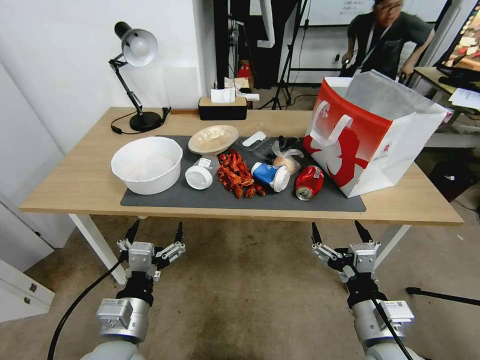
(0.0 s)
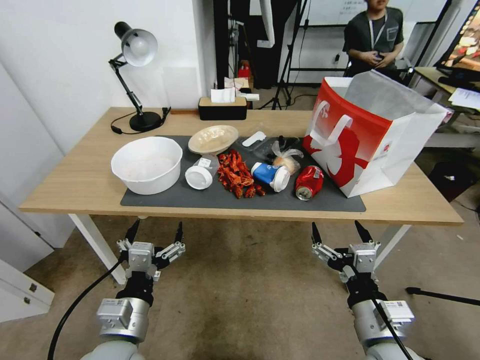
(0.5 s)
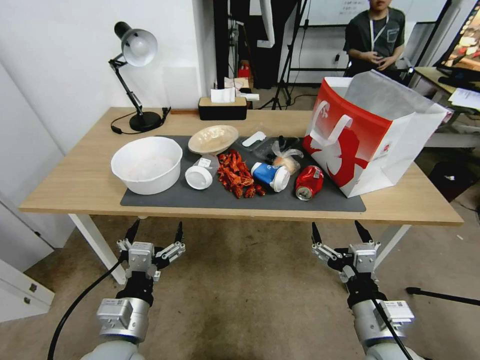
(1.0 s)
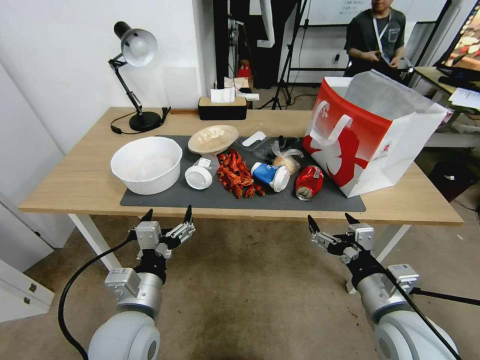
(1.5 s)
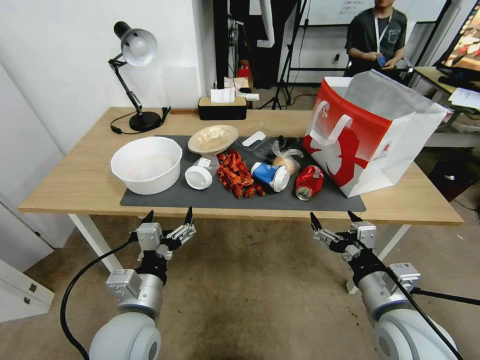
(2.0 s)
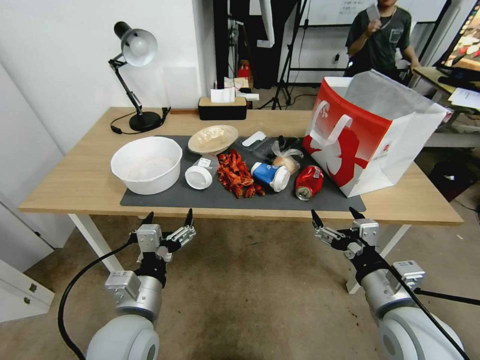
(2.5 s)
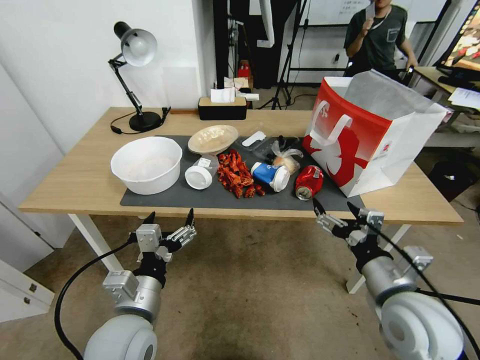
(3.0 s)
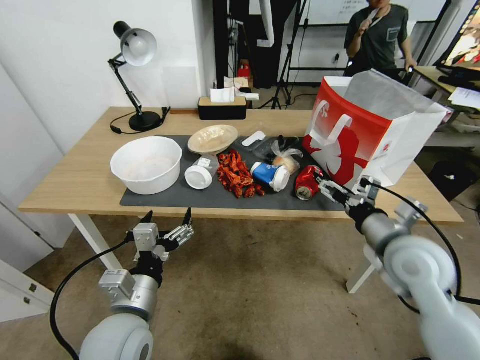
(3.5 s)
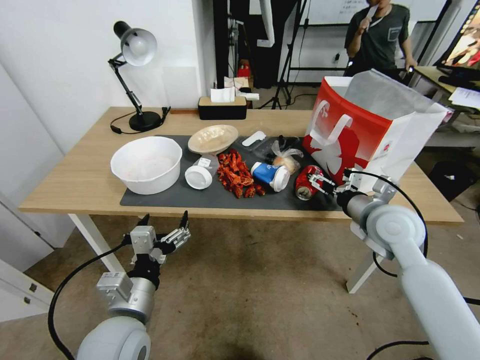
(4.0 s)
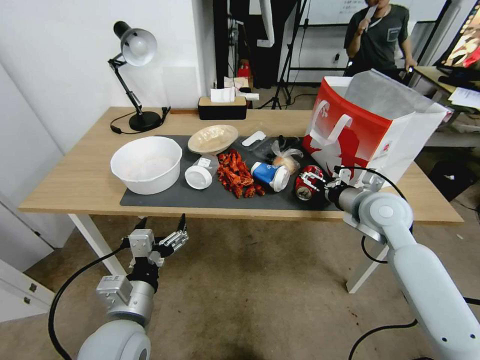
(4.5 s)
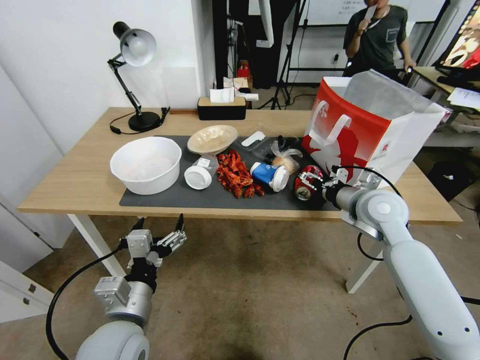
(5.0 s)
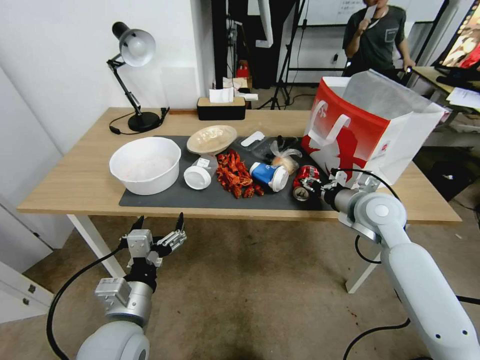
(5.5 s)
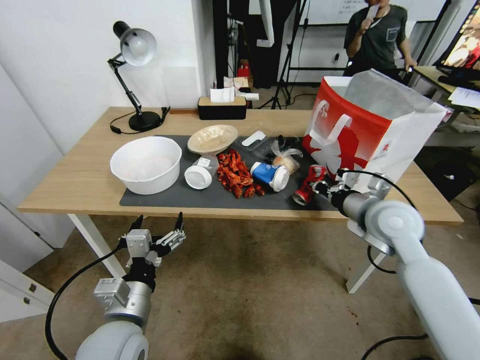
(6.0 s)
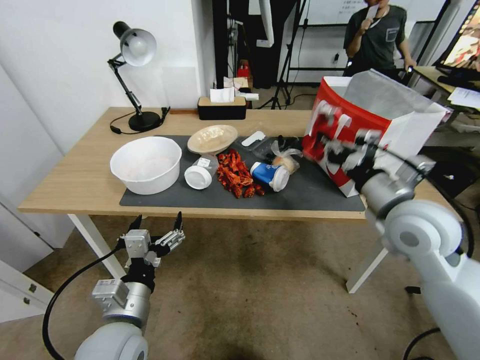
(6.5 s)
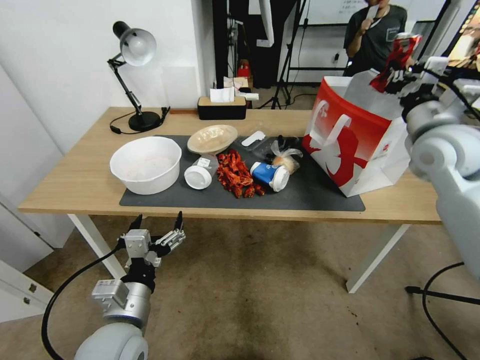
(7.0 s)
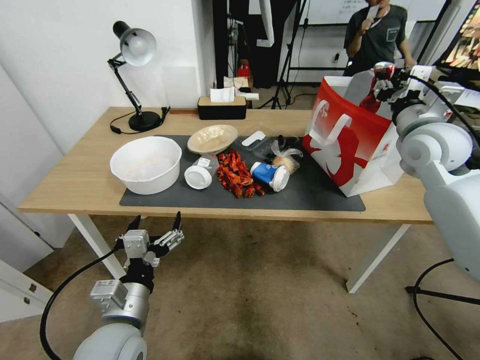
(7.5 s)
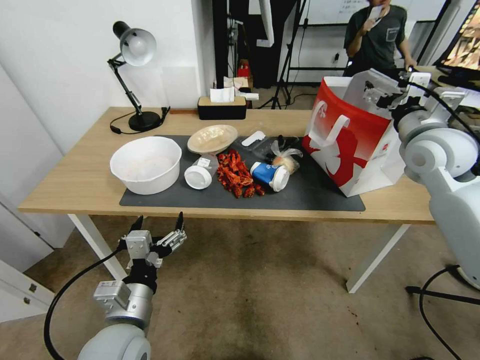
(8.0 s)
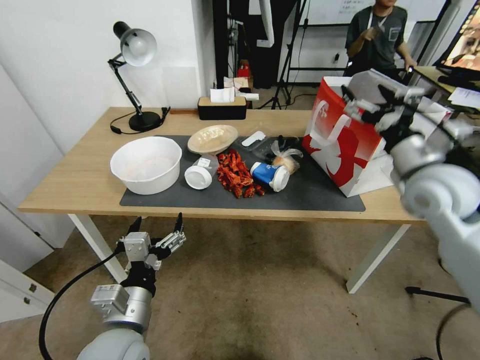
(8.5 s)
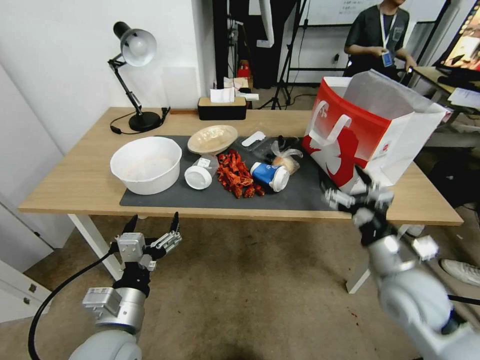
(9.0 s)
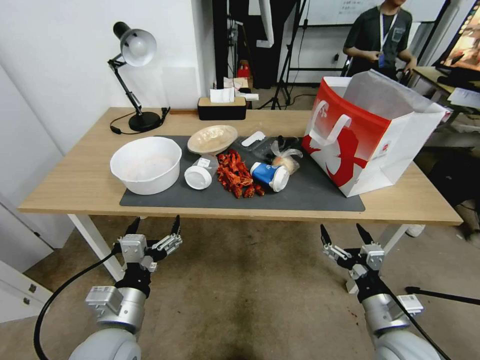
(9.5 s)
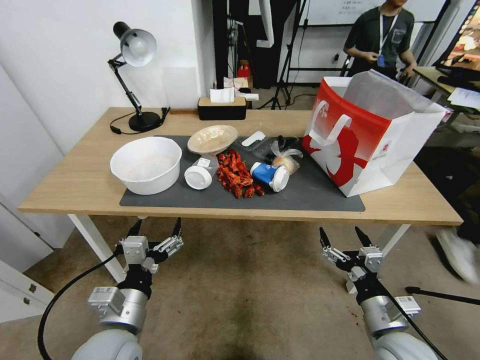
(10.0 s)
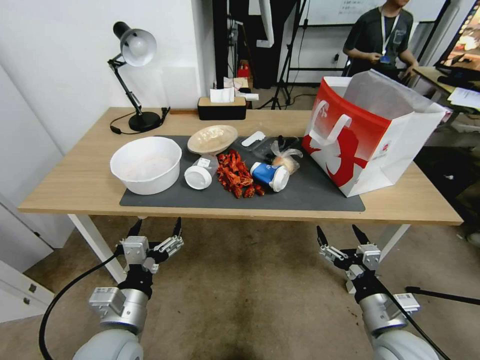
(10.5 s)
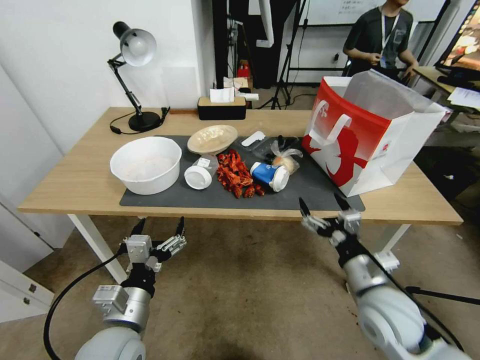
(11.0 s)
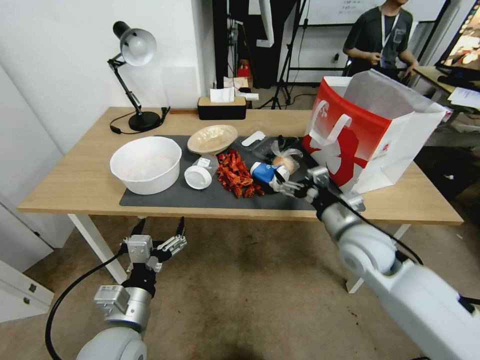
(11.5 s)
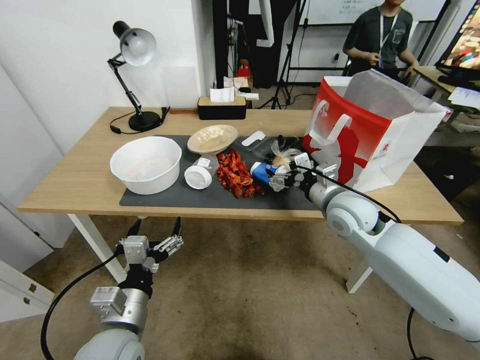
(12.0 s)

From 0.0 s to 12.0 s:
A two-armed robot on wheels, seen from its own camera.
From 2.0 s to 4.0 s: The right gripper moves forward, roughly 15 cm.
From 4.0 s to 6.0 s: The right gripper closes its fingers.
From 6.0 s to 8.0 s: The right gripper shifts some 15 cm upward, forward and to the right, and opens its fingers.
From 8.0 s to 10.0 s: The right gripper travels downward and backward by some 40 cm.
From 10.0 s to 12.0 s: The right gripper heads forward and upward, covering about 25 cm.

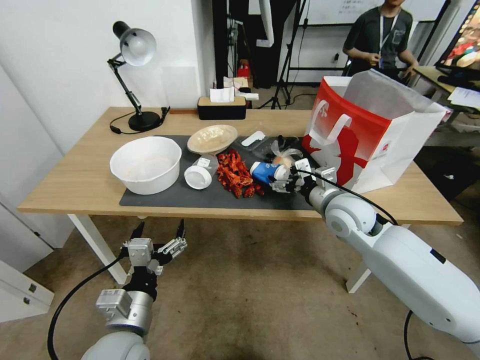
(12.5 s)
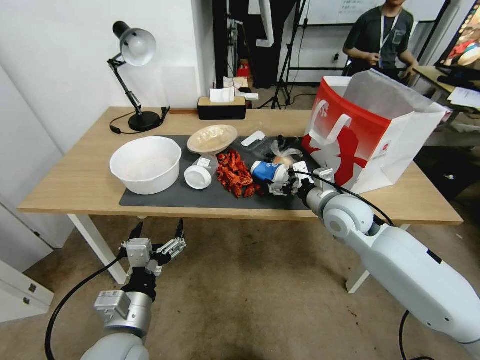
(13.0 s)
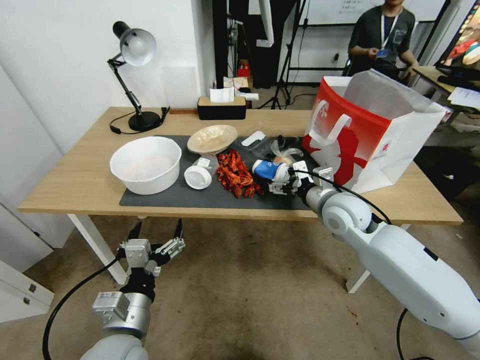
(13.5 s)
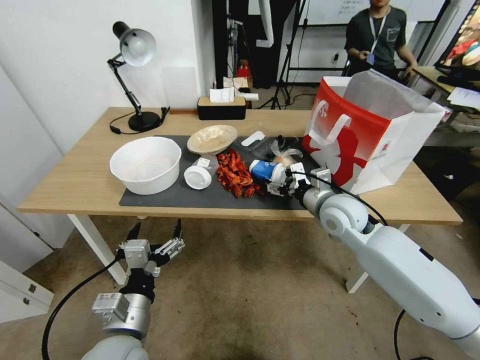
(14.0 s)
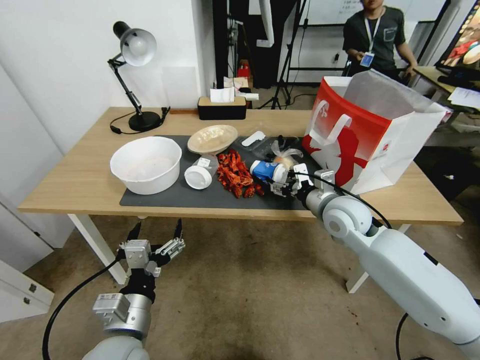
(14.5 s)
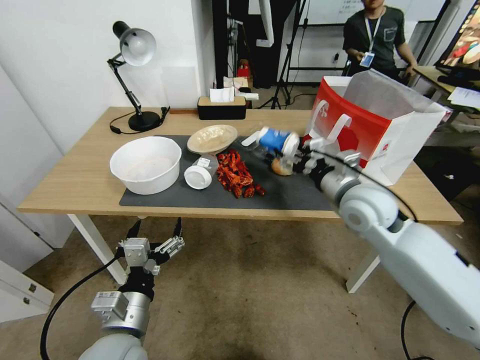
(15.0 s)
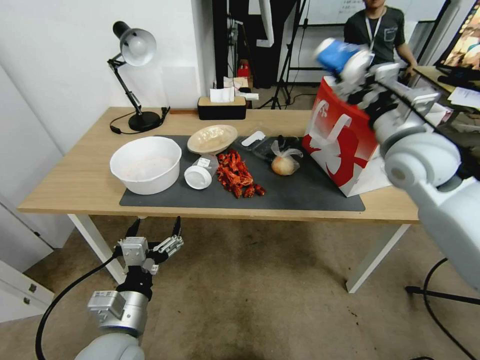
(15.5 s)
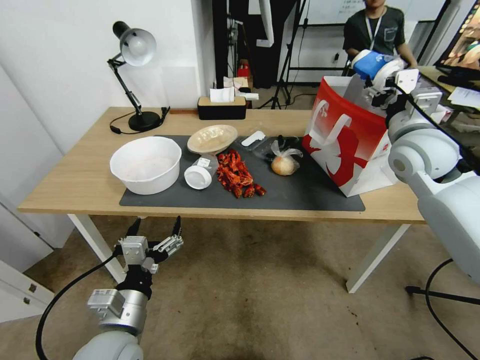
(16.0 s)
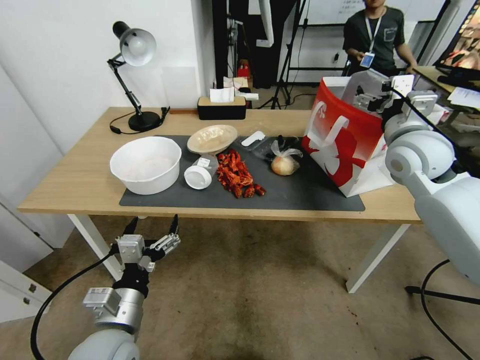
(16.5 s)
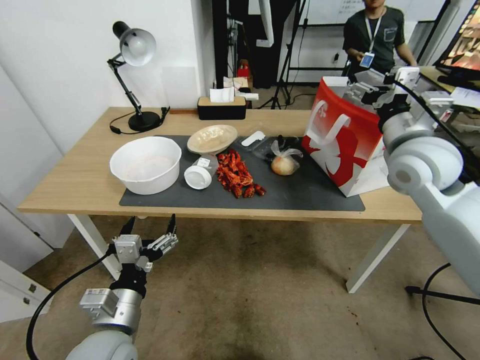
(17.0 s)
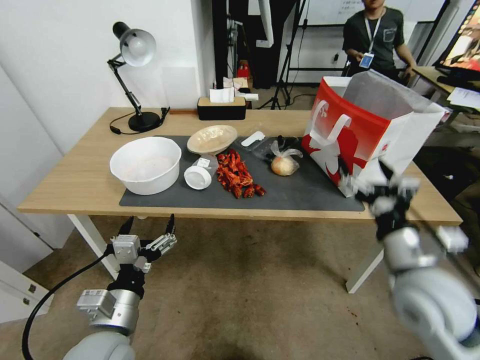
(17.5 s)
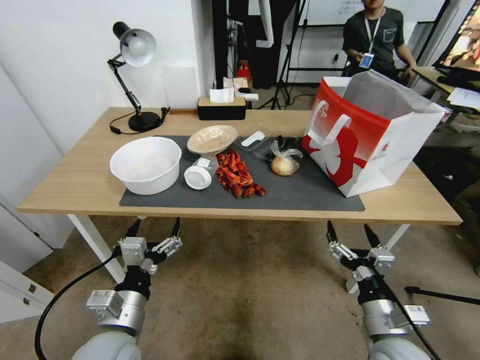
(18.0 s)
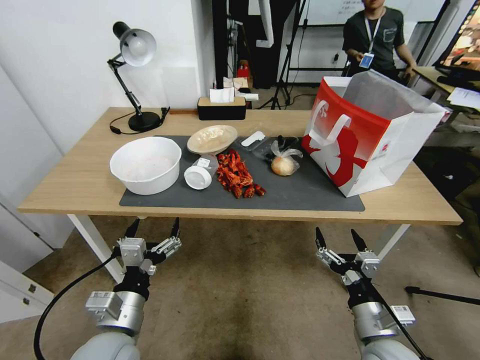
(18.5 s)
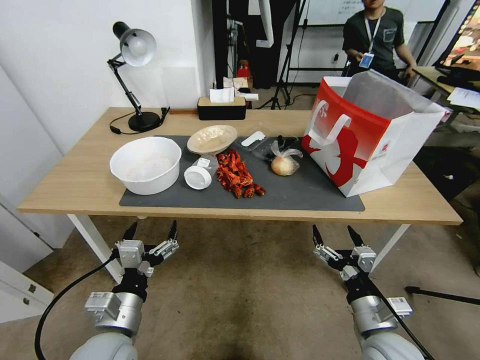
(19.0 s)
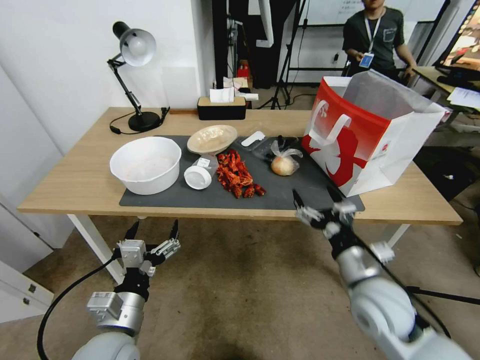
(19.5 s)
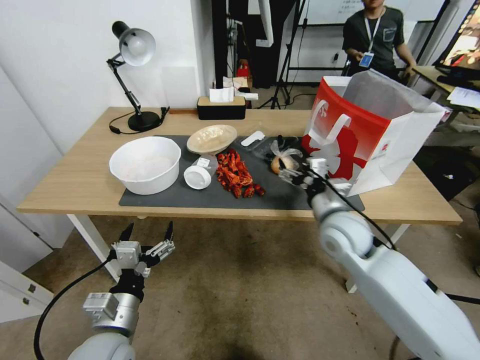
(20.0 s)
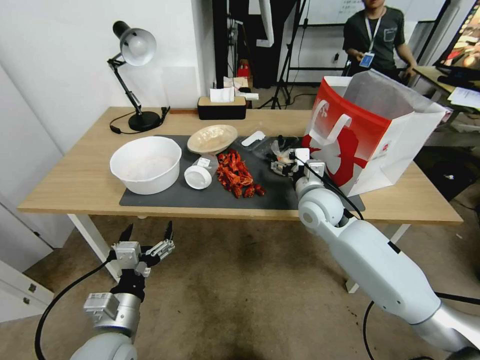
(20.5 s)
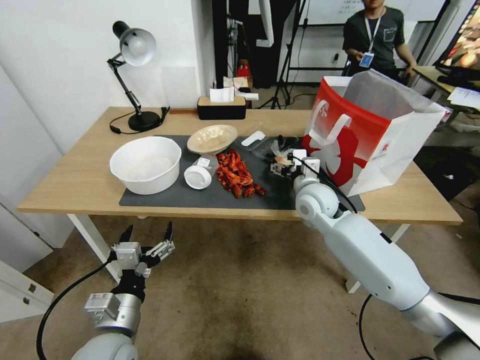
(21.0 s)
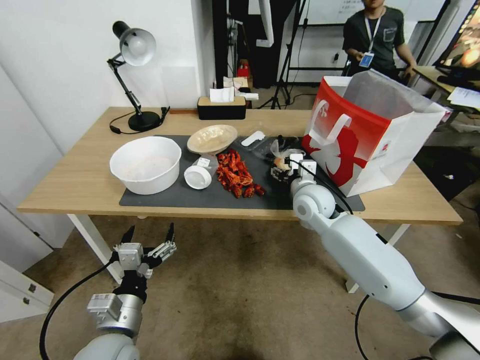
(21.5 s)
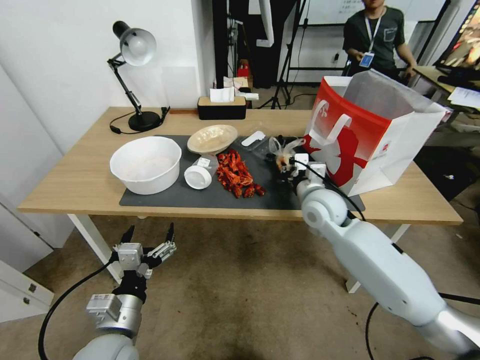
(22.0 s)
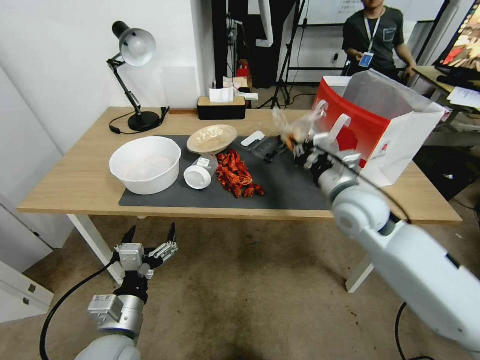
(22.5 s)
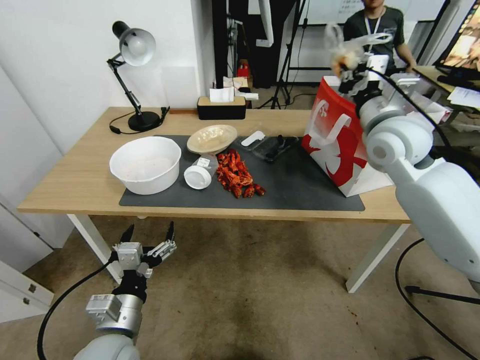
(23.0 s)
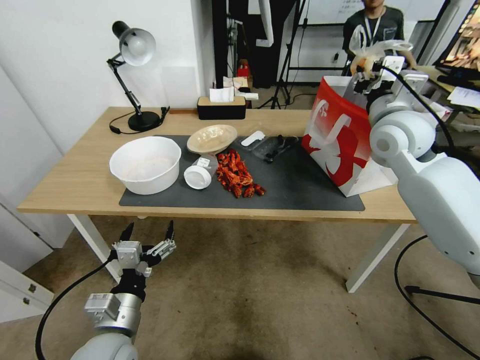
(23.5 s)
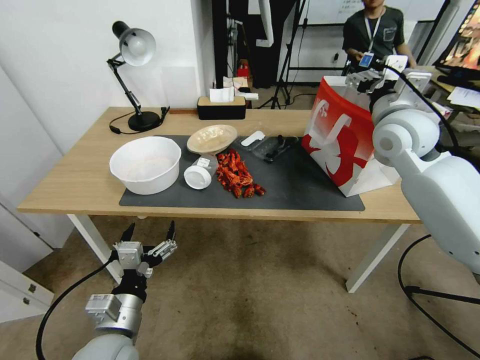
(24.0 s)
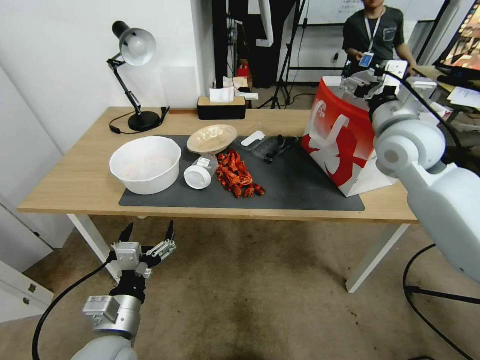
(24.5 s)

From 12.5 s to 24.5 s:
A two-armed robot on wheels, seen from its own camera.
From 12.5 s to 14.5 s: The grippers make only small movements.
From 14.5 s to 16.5 s: The right gripper goes about 15 cm upward and to the right.
From 16.5 s to 18.5 s: The right gripper heads backward and downward, covering some 40 cm.
From 18.5 s to 20.5 s: The right gripper shifts about 30 cm forward and upward.
From 20.5 s to 22.5 s: The right gripper travels upward and backward by about 10 cm, and closes up.
From 22.5 s to 24.5 s: The right gripper heads upward, to the right and forward, covering some 15 cm, and opens.

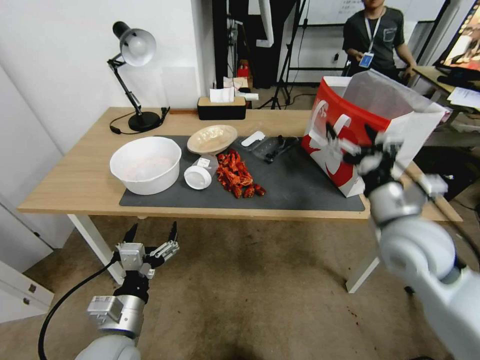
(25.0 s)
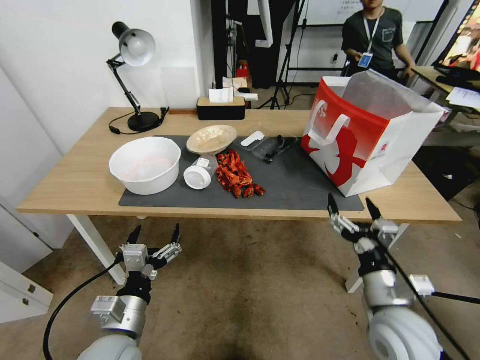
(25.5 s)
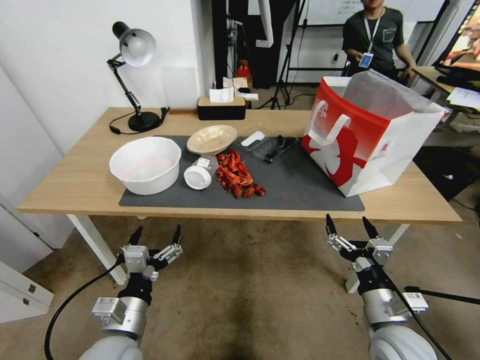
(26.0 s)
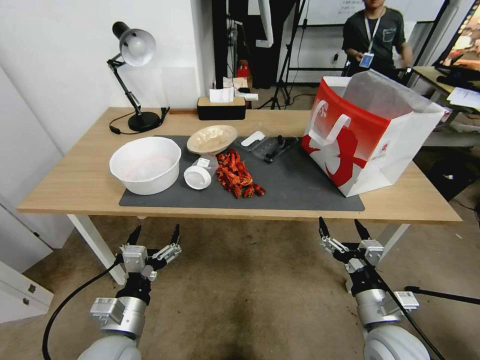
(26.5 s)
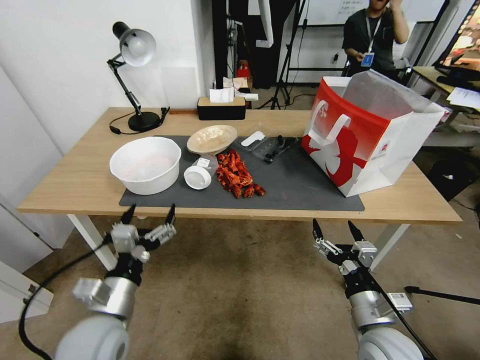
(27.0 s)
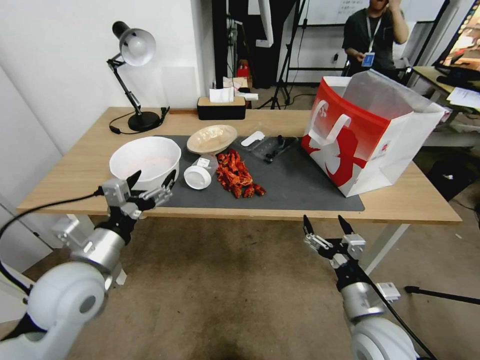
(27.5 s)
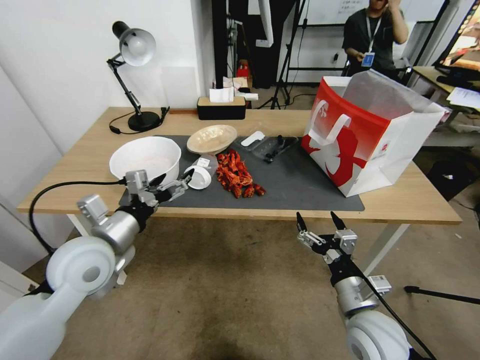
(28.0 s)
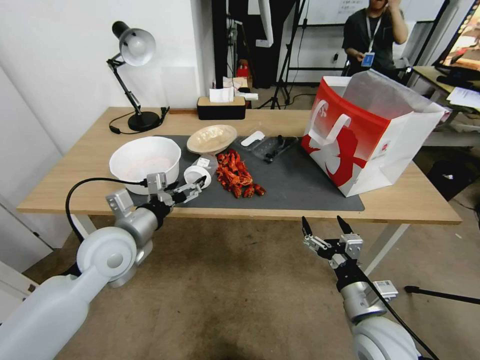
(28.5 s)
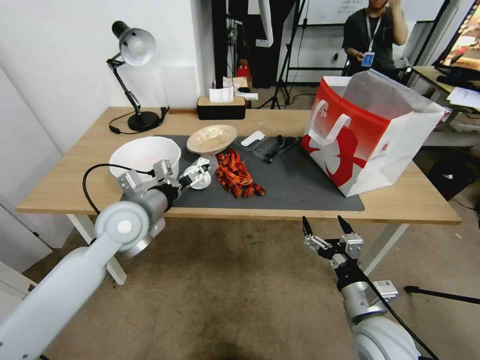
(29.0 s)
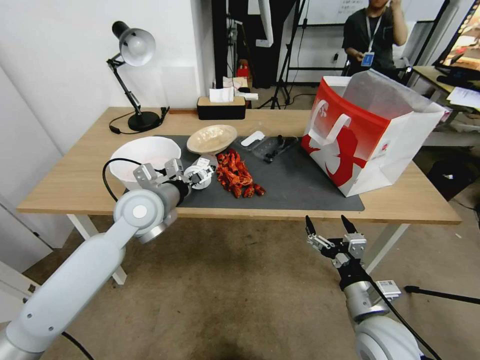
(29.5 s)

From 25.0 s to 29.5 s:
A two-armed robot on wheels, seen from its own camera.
From 25.0 s to 27.0 s: The right gripper is displaced downward and backward by about 25 cm.
From 27.0 s to 29.5 s: The left gripper shifts approximately 25 cm forward and upward.
